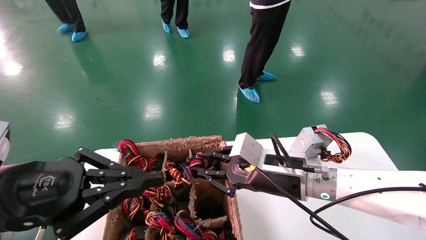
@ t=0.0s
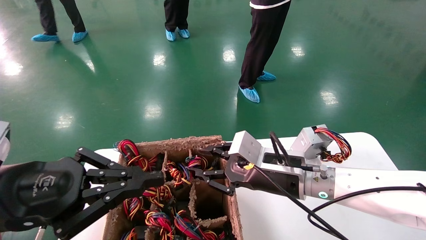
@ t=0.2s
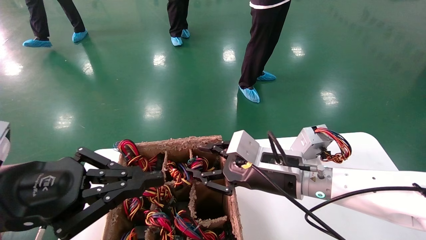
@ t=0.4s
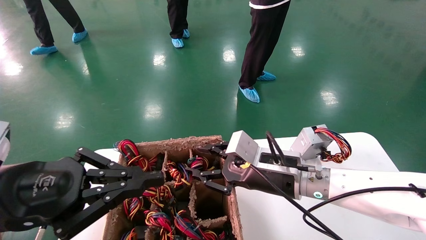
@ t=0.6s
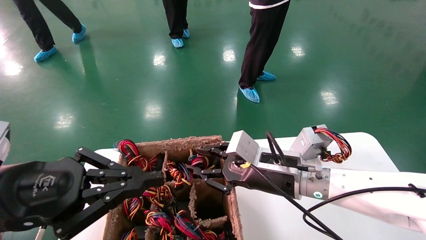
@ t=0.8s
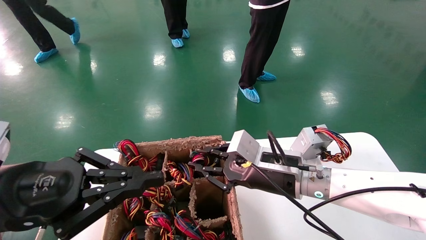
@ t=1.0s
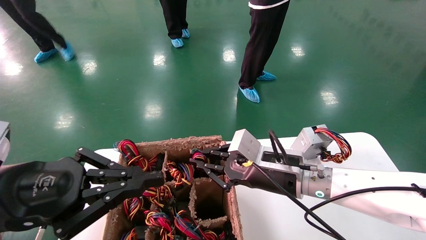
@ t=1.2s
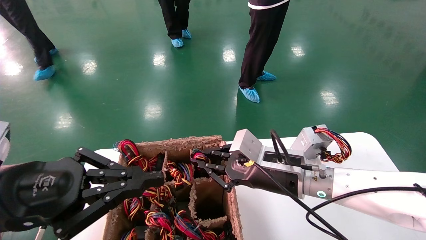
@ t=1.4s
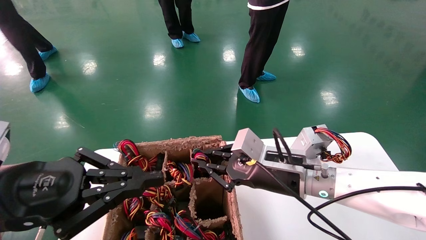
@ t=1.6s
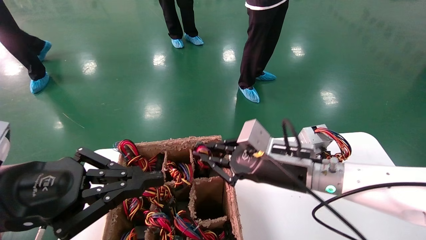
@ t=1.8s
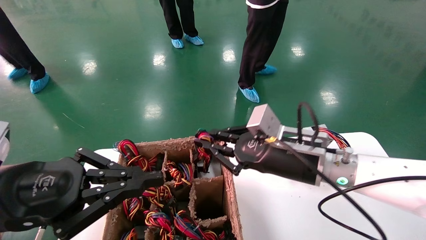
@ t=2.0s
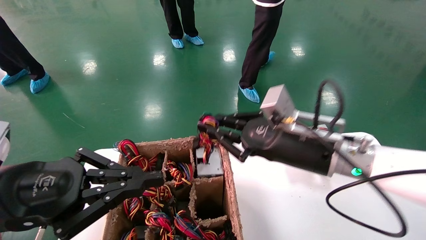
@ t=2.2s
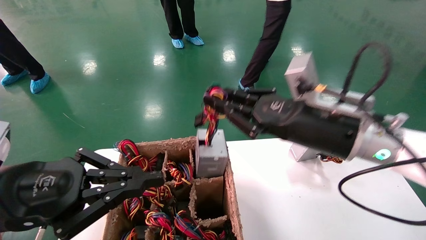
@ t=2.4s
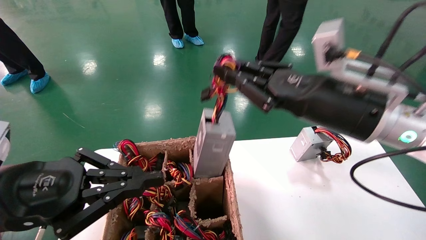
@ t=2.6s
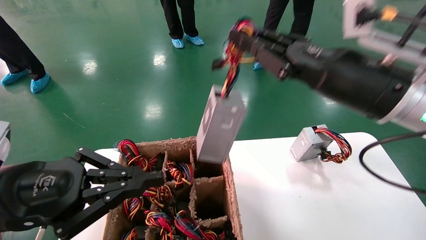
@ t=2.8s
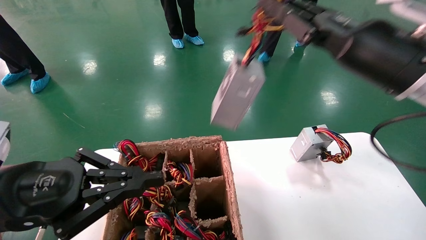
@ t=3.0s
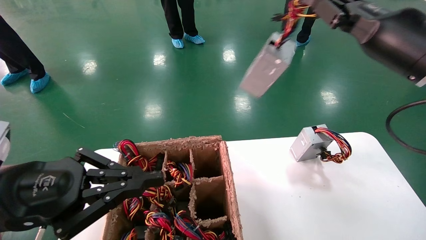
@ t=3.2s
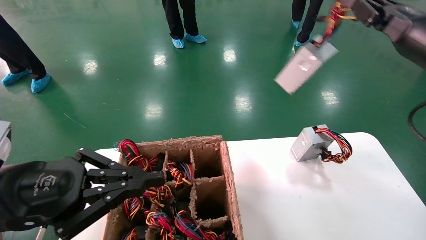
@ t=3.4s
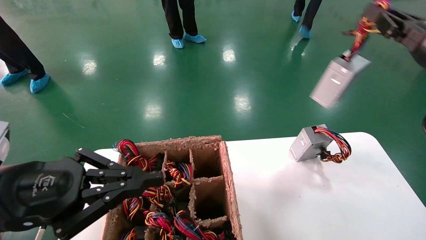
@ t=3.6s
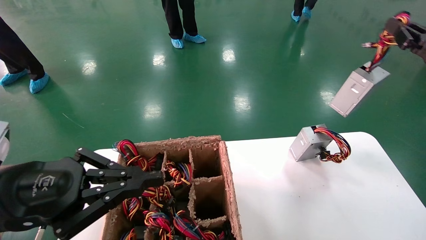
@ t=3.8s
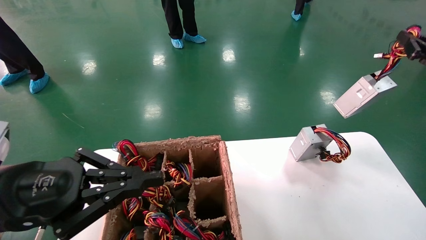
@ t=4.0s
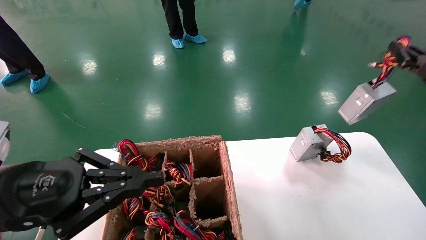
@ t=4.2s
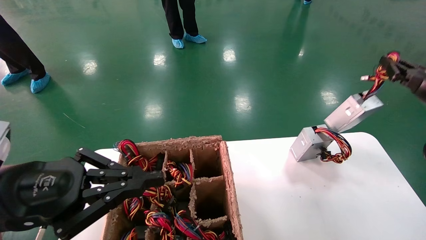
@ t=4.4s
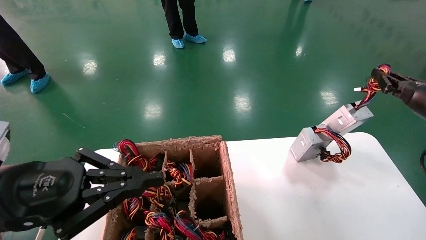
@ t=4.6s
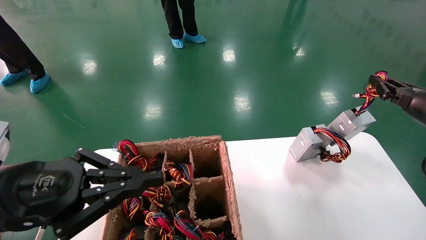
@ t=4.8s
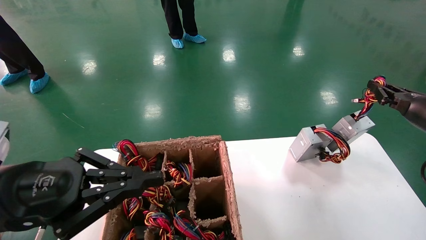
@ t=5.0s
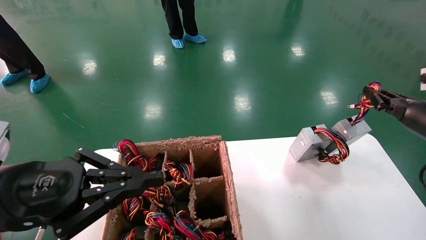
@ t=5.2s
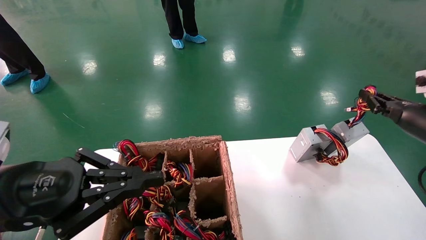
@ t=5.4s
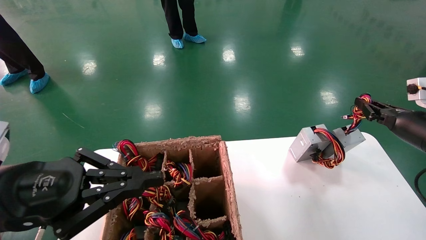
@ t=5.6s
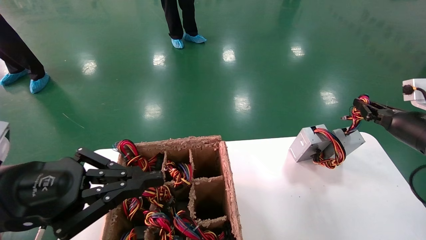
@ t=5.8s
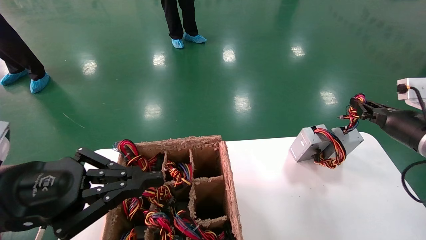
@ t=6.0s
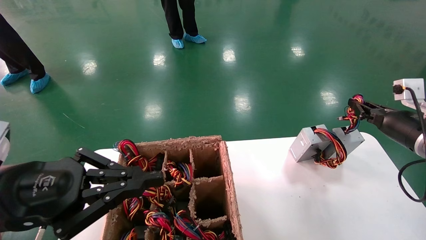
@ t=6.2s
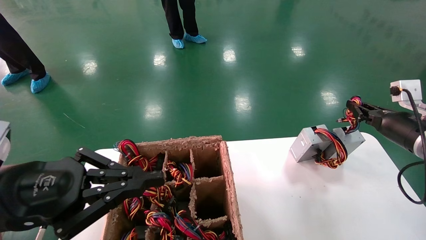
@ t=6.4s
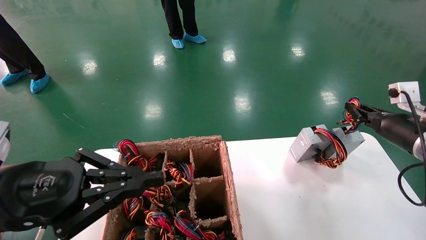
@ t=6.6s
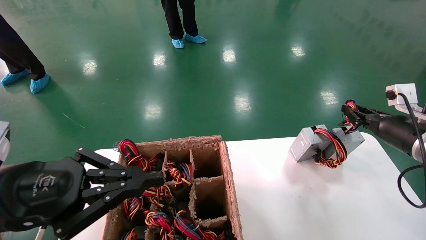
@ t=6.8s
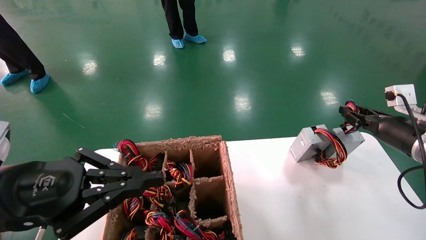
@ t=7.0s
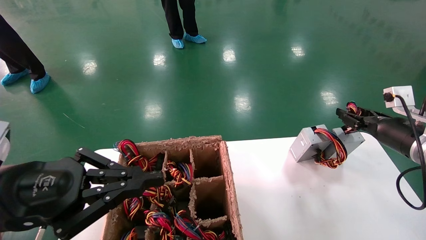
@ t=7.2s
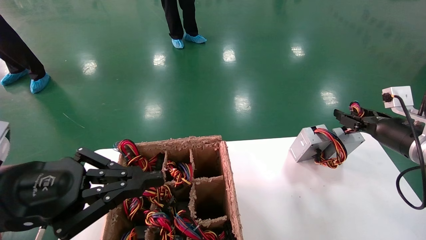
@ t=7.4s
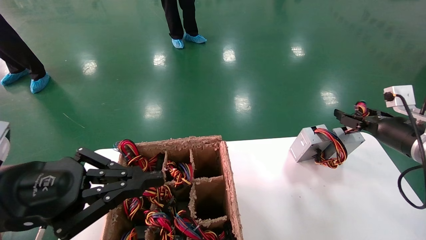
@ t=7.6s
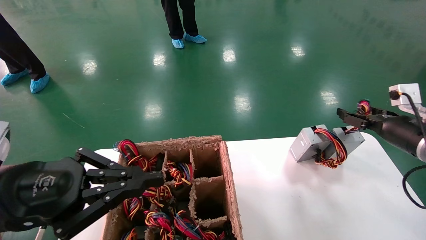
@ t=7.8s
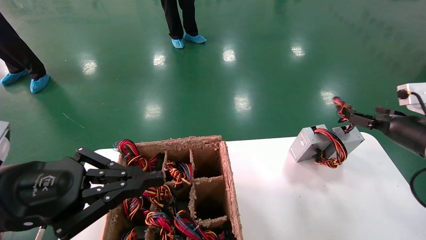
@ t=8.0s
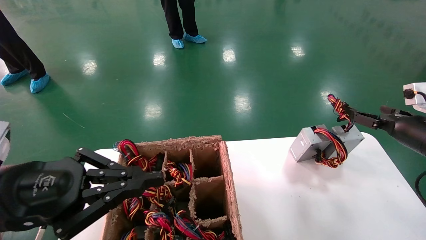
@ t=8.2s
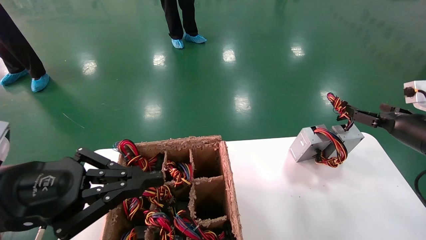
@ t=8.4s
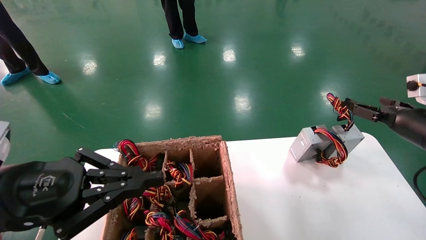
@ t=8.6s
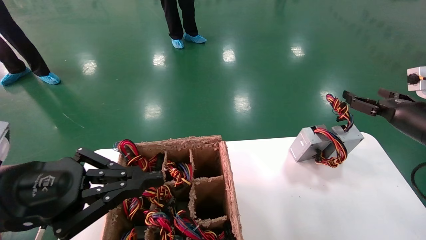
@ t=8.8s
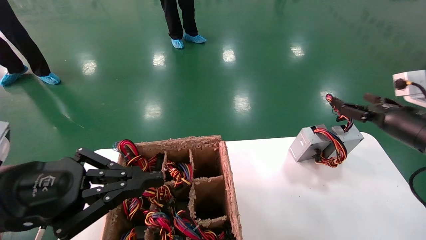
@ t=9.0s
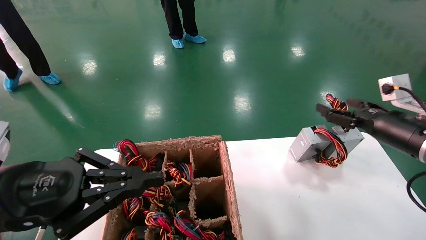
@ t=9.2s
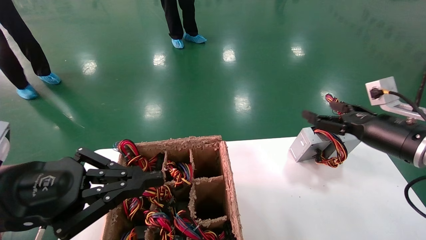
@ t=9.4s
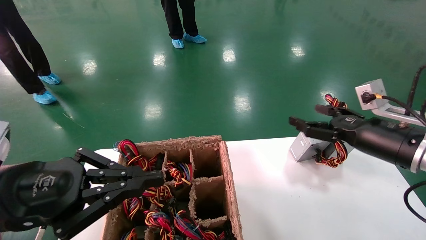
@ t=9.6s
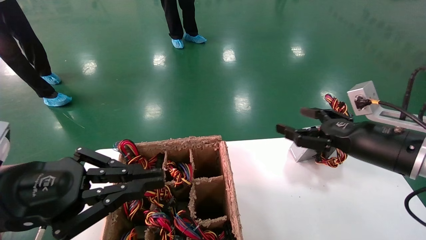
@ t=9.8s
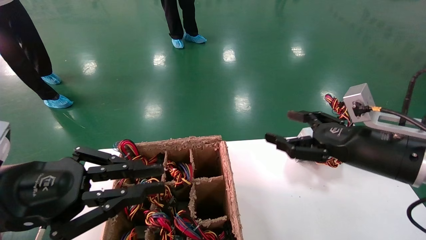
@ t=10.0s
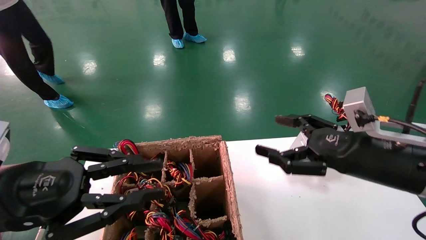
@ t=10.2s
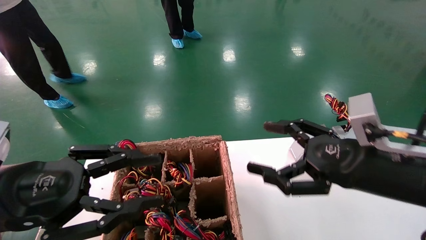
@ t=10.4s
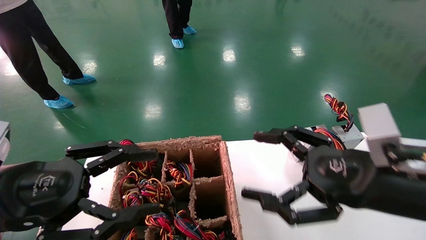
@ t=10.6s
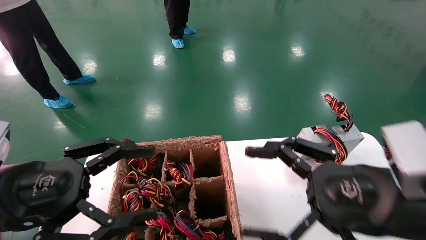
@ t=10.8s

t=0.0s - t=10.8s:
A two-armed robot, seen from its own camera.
Step, t=0.0s - t=6.6s: Place the main unit power supply in the designated area.
t=0.0s - t=1.6s: Neither gripper changes place.
t=1.6s - t=3.0s: The right gripper goes roughly 20 cm upward and to the right.
t=3.0s - t=4.6s: The right gripper shifts about 20 cm to the right and downward.
t=4.6s - t=6.2s: The right gripper shifts some 5 cm downward.
t=6.2s - t=7.8s: The right gripper opens up.
t=7.8s - t=9.2s: The right gripper goes roughly 5 cm to the left.
t=9.2s - t=10.8s: The right gripper travels backward and to the left by approximately 20 cm, while the left gripper opens.
